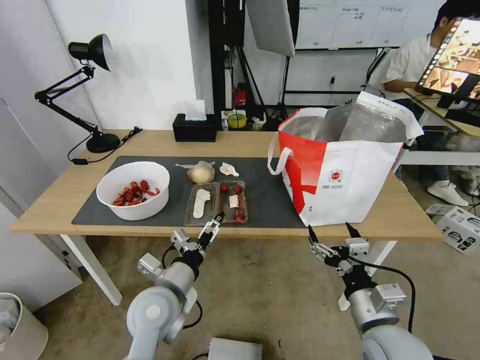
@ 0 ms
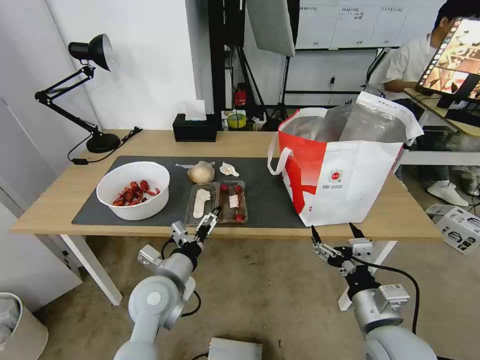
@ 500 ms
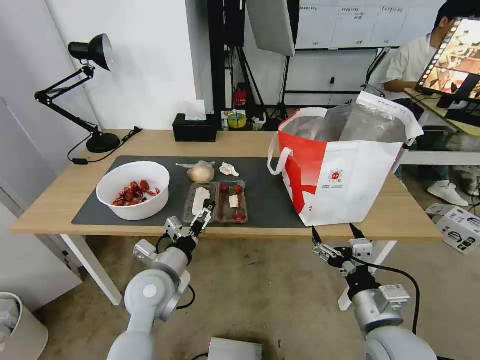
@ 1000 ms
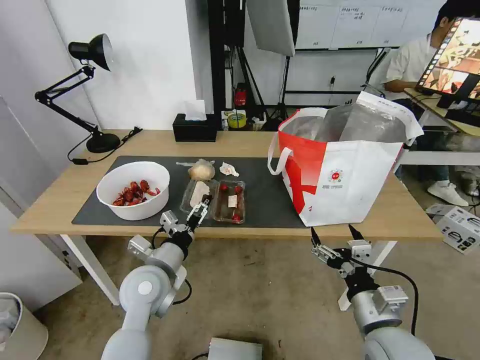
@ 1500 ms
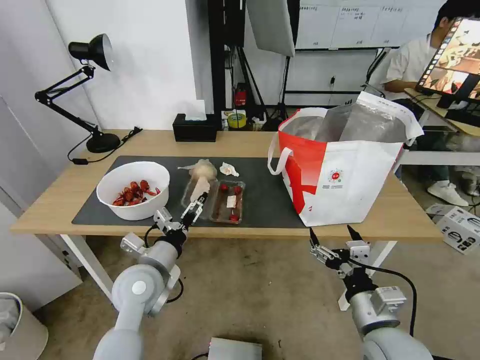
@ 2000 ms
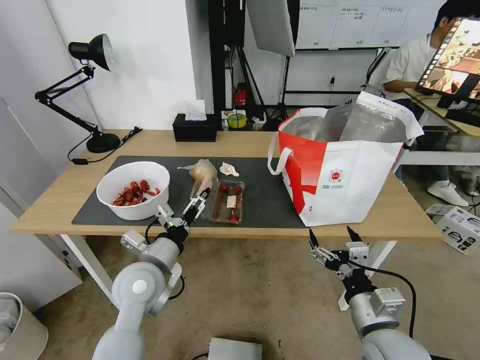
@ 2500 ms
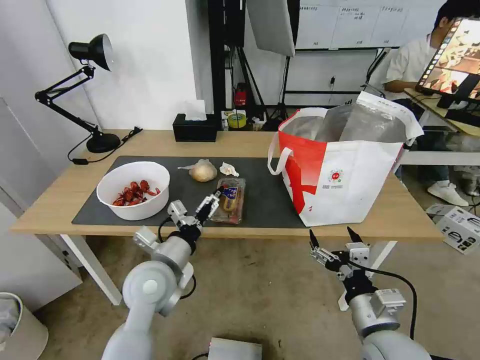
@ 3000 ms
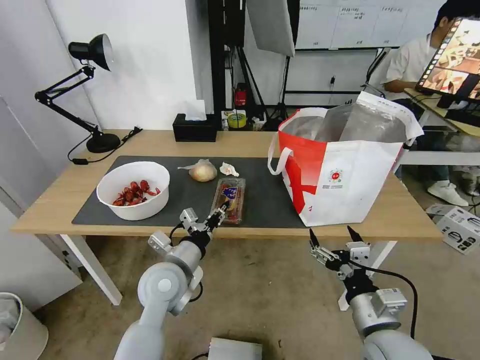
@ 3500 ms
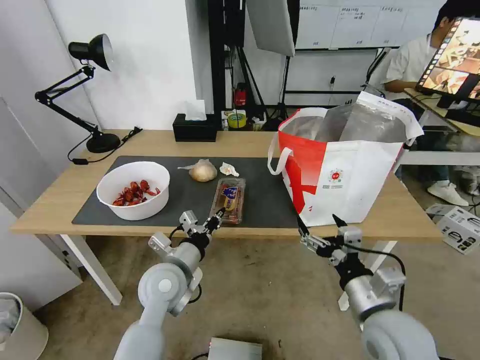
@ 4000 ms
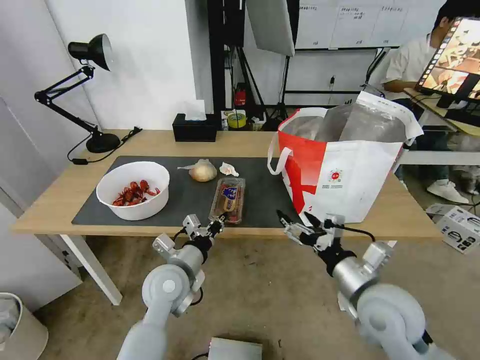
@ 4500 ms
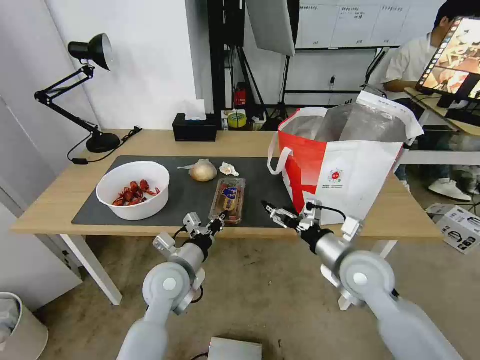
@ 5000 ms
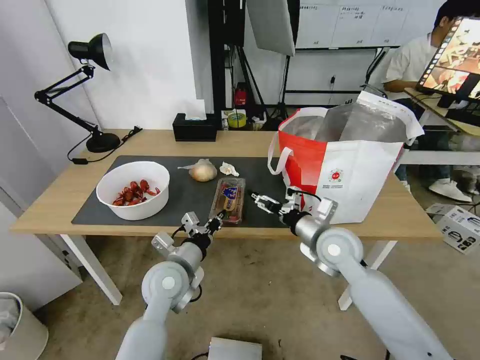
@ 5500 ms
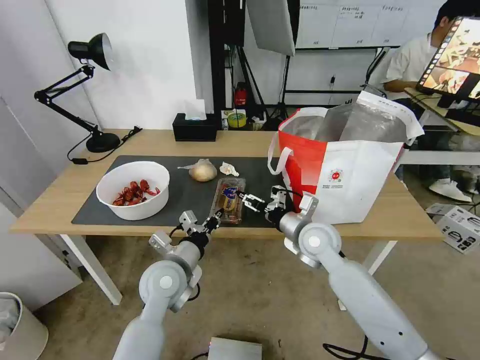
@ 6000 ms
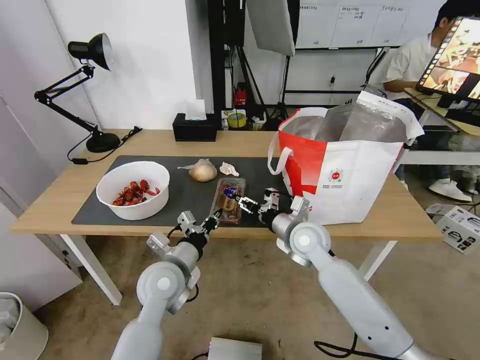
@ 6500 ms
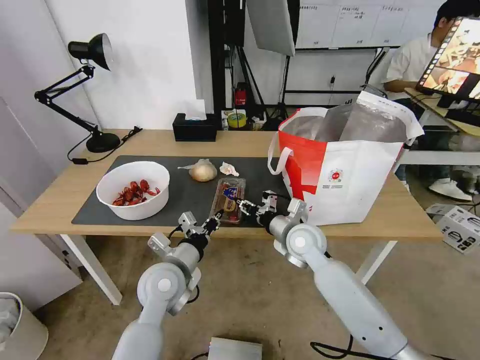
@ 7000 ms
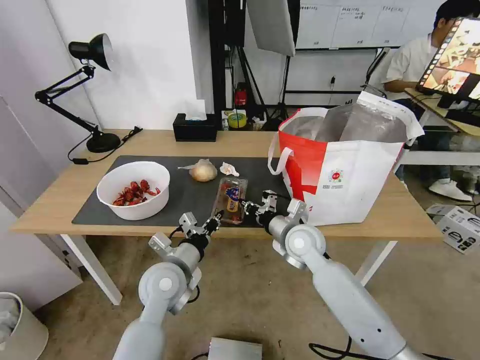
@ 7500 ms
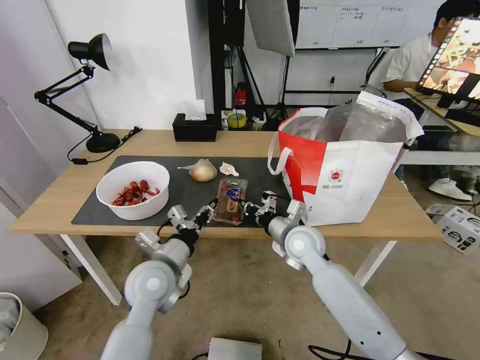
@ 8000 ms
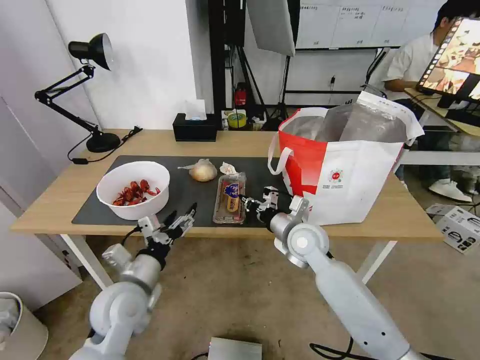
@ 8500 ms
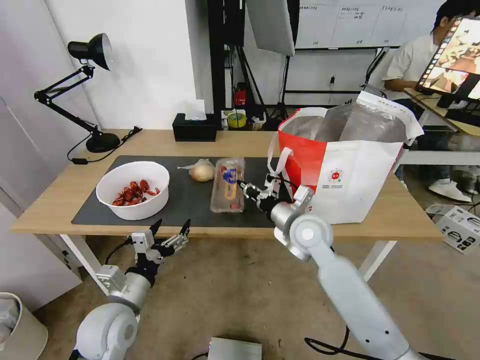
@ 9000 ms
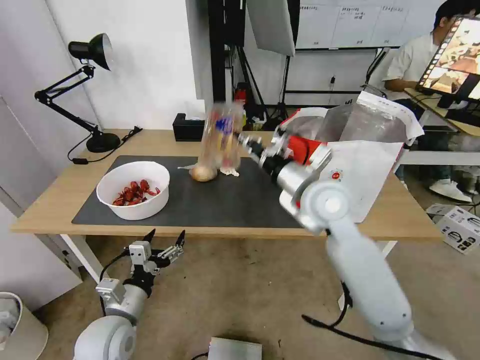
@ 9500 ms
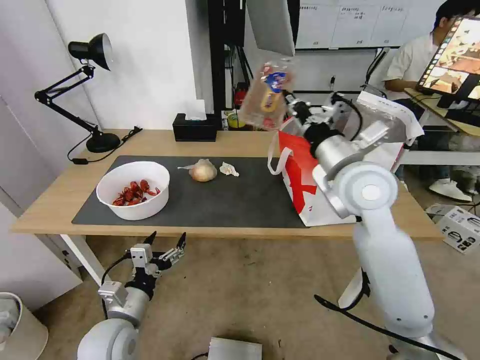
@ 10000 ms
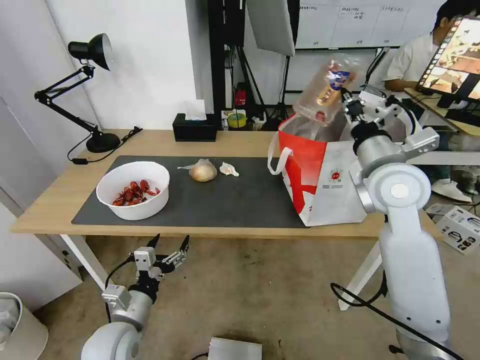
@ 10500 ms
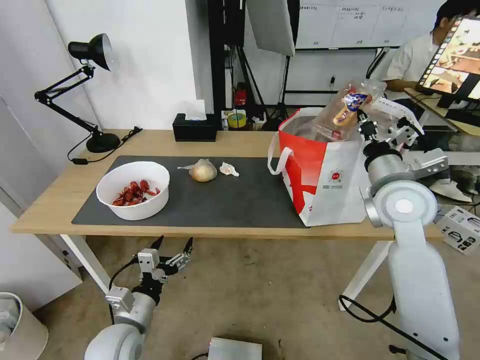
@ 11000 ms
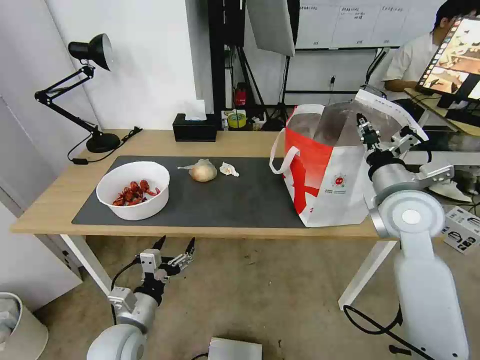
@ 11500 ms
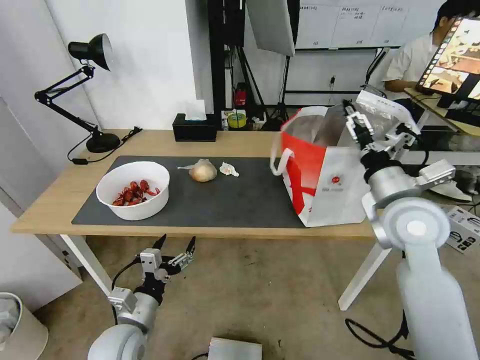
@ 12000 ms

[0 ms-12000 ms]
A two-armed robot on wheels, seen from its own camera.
Task of the whole recording: Pick up the trash from the table and place it into the takeout bag.
0 ms to 2000 ms: The left gripper changes place by about 5 cm.
2000 ms to 4000 ms: The left gripper closes up.
4000 ms to 6000 ms: The right gripper is displaced forward by approximately 20 cm.
6000 ms to 8000 ms: The right gripper closes up.
8000 ms to 10000 ms: The right gripper heads upward, covering some 20 cm. The left gripper travels backward, to the left and downward by roughly 15 cm, and opens its fingers.
10000 ms to 12000 ms: The right gripper heads to the right, covering approximately 10 cm, and opens.

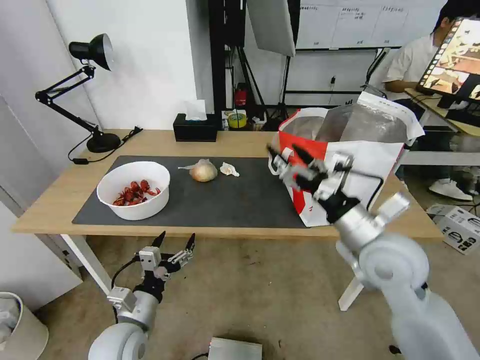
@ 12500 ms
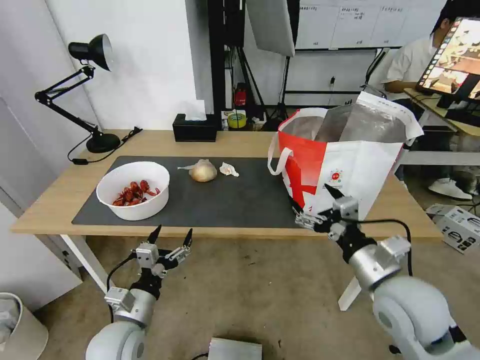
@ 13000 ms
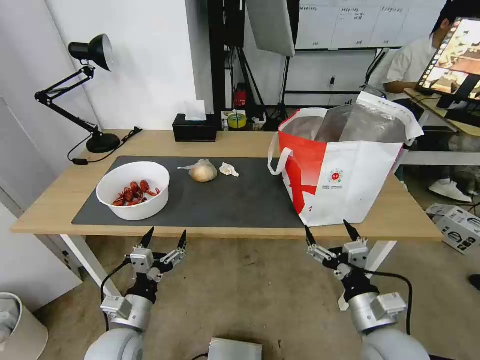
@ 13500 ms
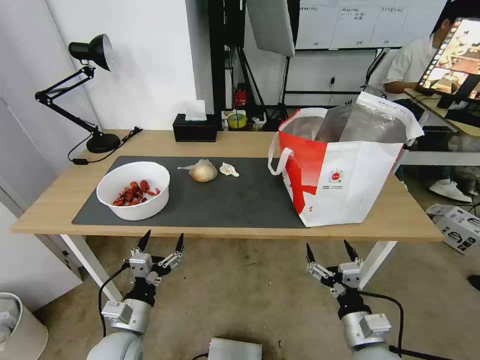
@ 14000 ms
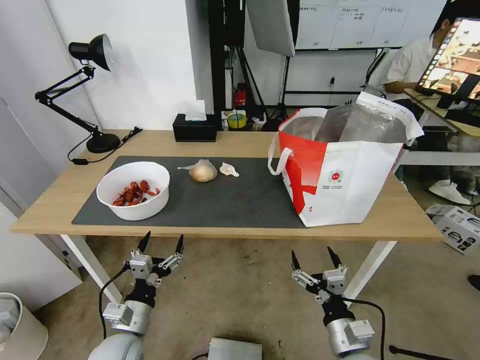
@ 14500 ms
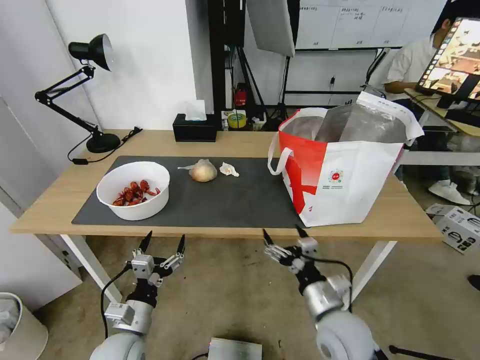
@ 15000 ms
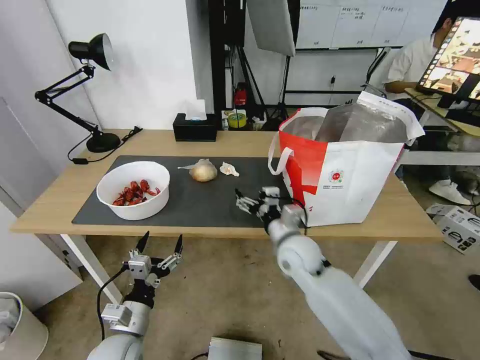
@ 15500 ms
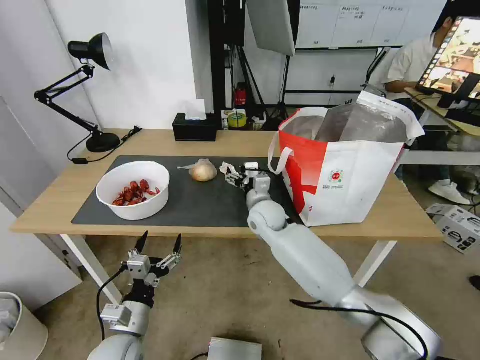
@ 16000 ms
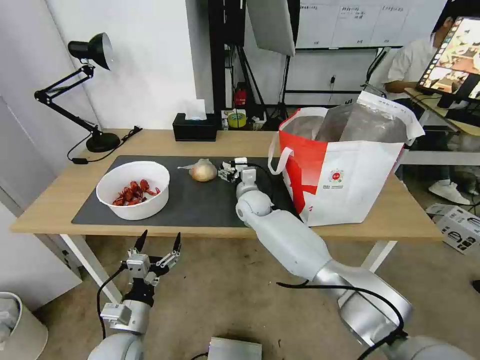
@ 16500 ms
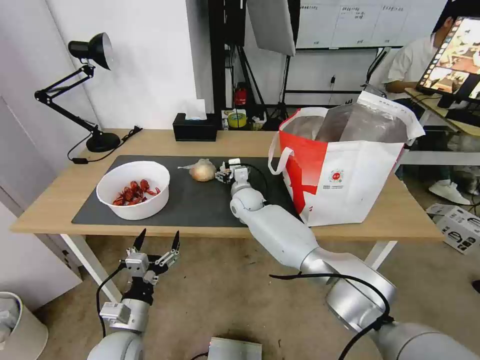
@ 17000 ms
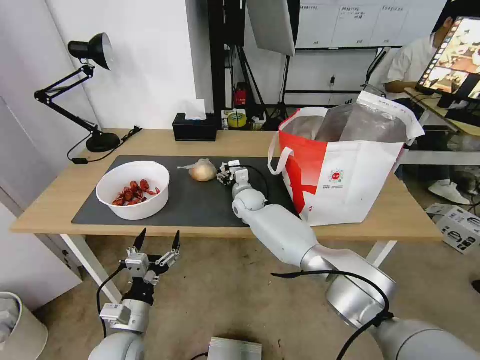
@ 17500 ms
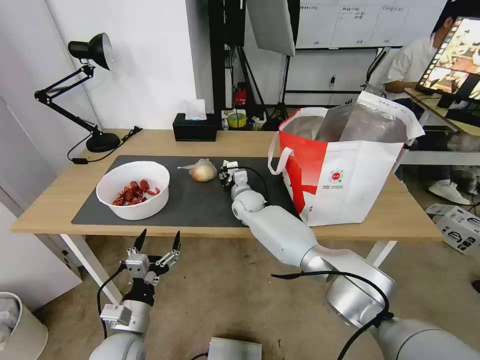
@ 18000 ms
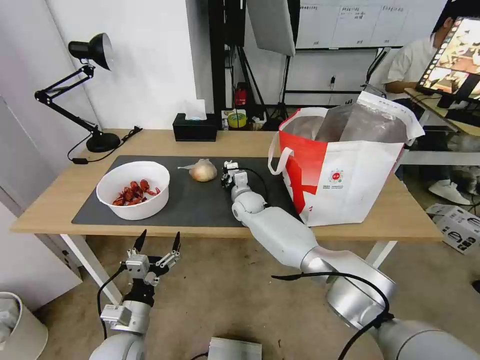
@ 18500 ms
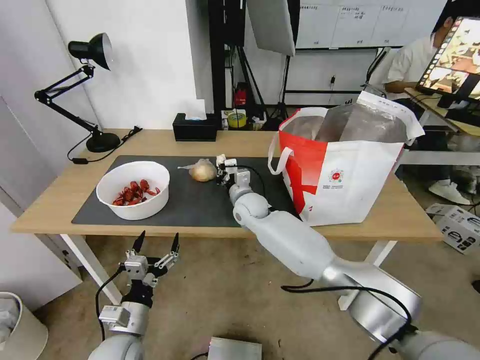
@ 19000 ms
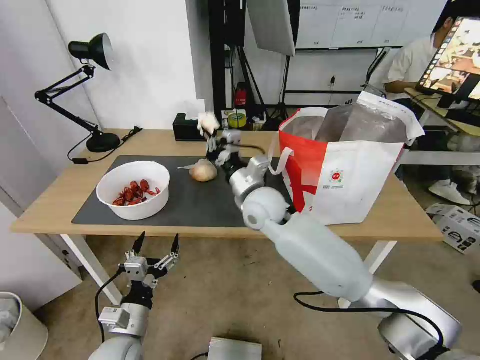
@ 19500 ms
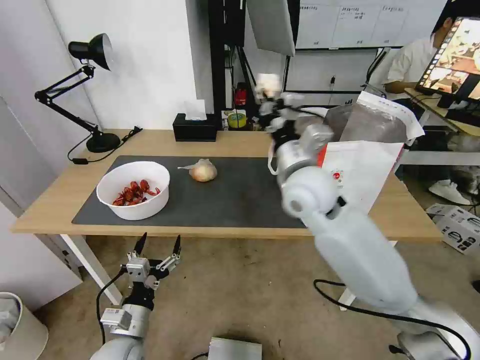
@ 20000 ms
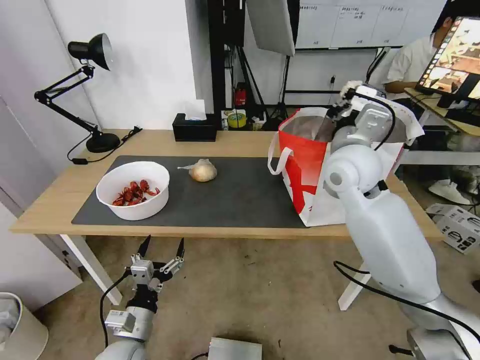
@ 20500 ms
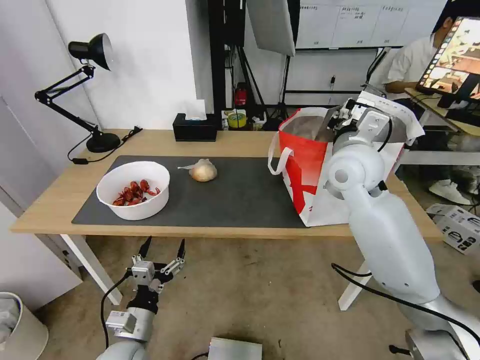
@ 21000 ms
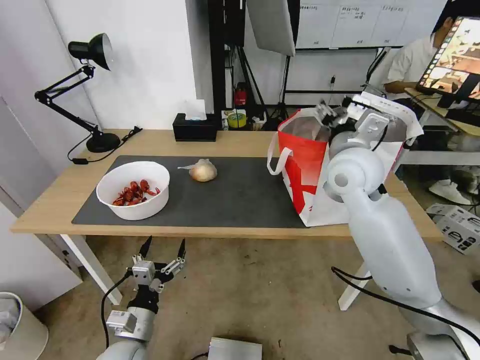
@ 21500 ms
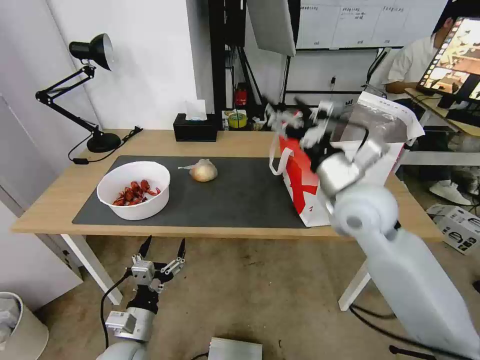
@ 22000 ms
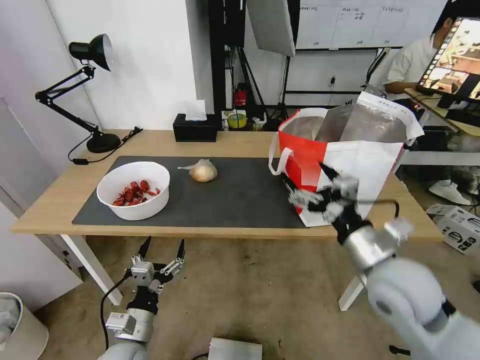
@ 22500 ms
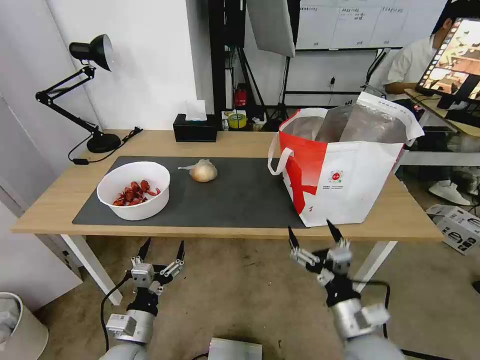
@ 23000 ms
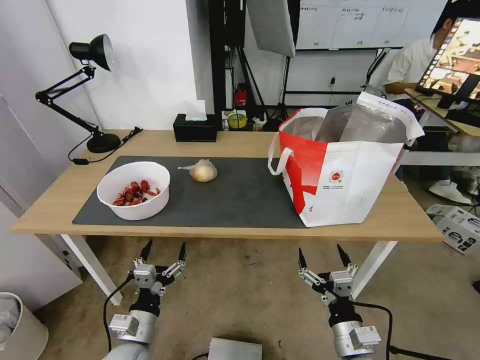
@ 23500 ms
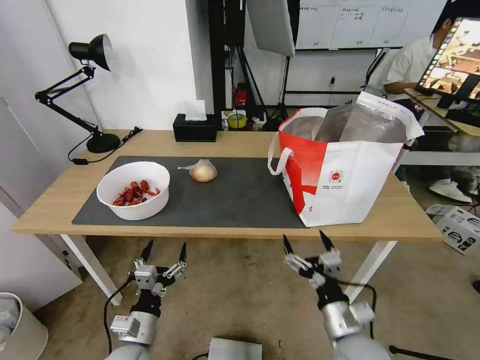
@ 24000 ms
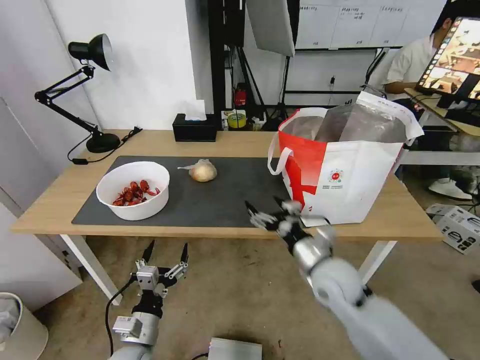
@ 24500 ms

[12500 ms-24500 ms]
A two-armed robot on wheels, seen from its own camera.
Task of the whole recording: Pick up the trash from the table and place it into the takeout bag.
12500 ms to 14500 ms: The right gripper shifts about 25 cm downward and backward.
14500 ms to 16500 ms: The right gripper moves forward and to the left, about 40 cm.
16500 ms to 18500 ms: The right gripper closes its fingers.
18500 ms to 20500 ms: The right gripper goes approximately 35 cm upward, to the right and backward.
20500 ms to 22500 ms: The right gripper moves backward and downward, about 20 cm, and opens its fingers.
22500 ms to 24500 ms: The right gripper heads downward, forward and to the left, covering about 15 cm.

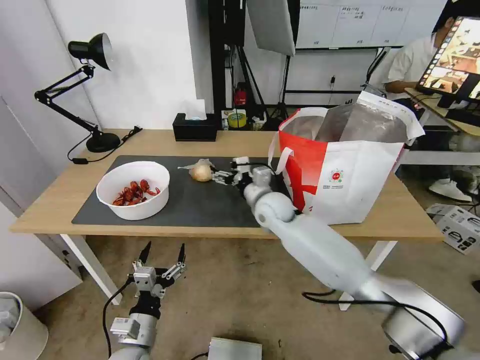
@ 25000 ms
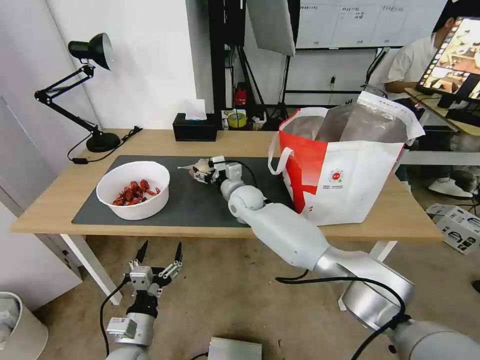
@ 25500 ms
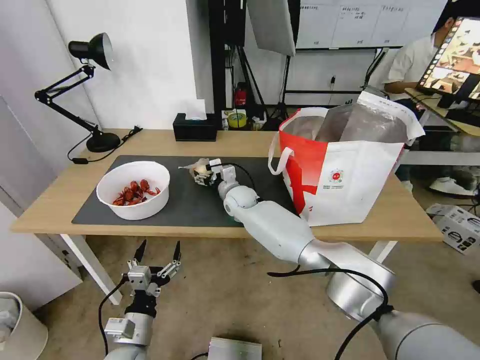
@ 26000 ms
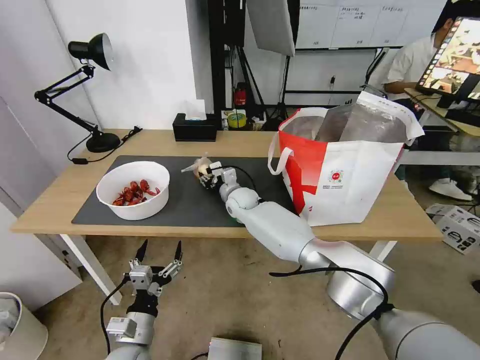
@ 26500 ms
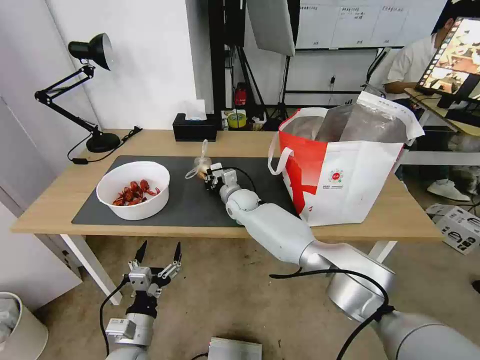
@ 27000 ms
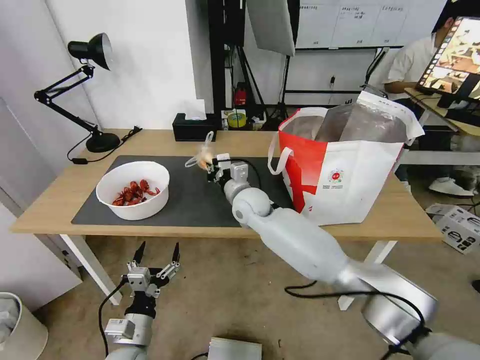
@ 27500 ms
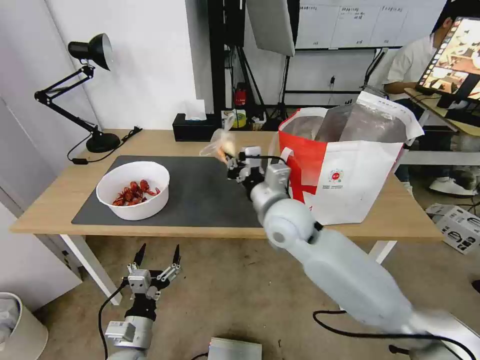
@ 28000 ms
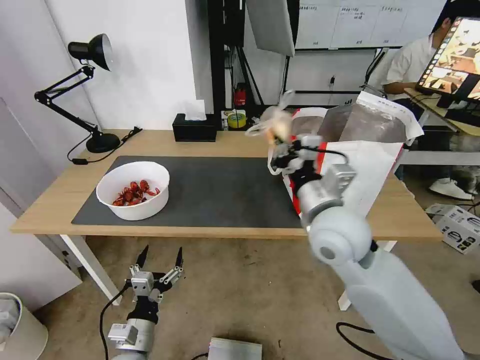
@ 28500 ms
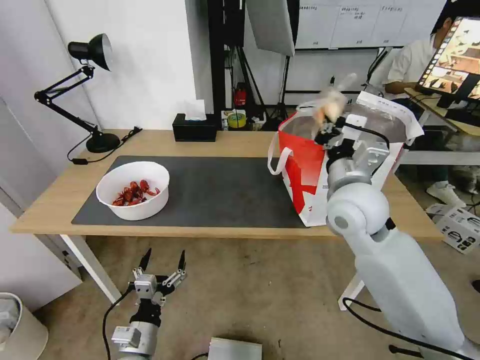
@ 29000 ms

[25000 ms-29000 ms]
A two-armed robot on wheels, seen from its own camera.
Task of the whole recording: Pick up the trash from the table and place it into the takeout bag.
25000 ms to 27000 ms: The right gripper travels to the left, forward and downward by roughly 15 cm, and closes up.
27000 ms to 29000 ms: The right gripper moves upward, backward and to the right, roughly 35 cm.
